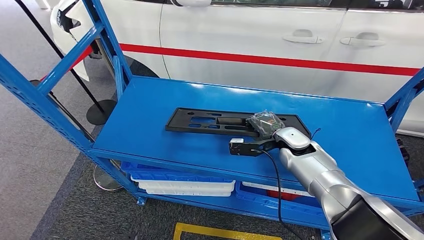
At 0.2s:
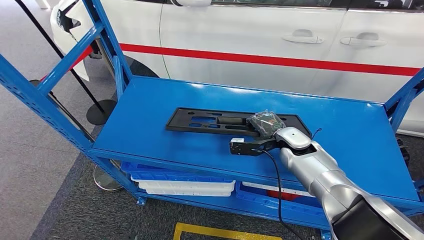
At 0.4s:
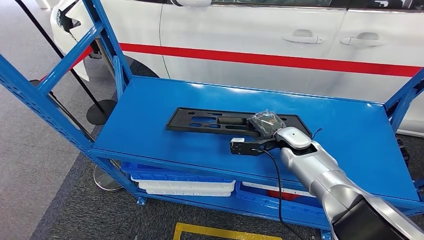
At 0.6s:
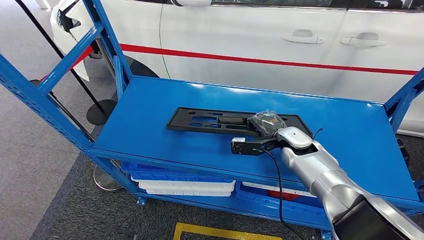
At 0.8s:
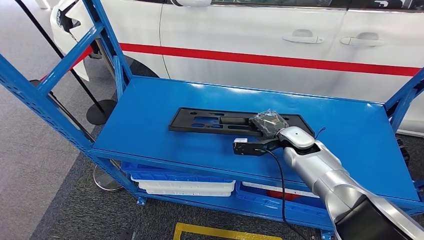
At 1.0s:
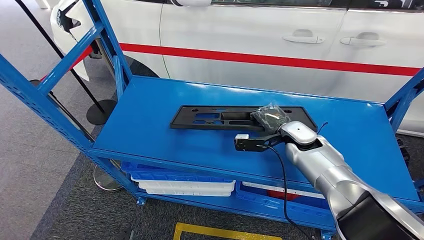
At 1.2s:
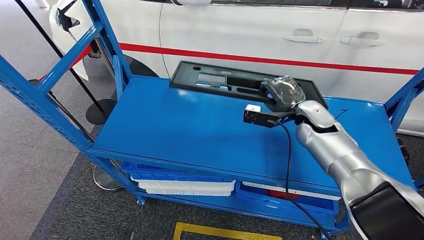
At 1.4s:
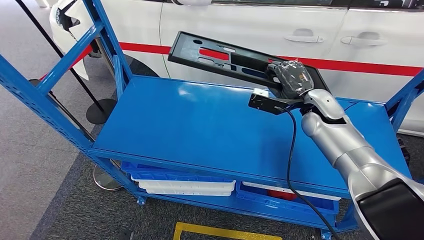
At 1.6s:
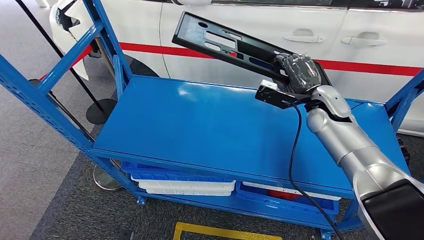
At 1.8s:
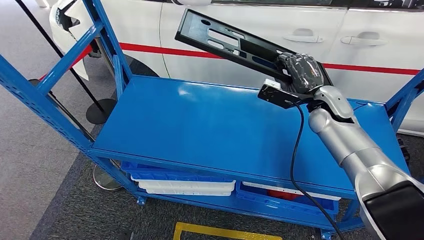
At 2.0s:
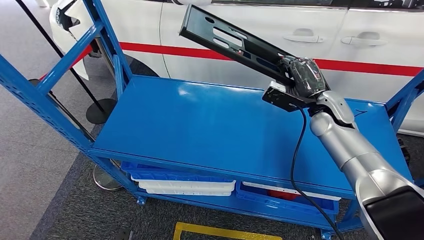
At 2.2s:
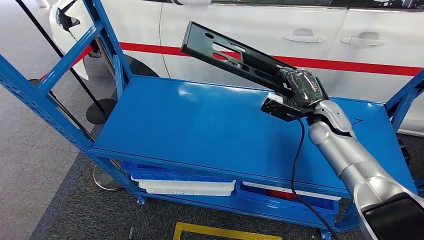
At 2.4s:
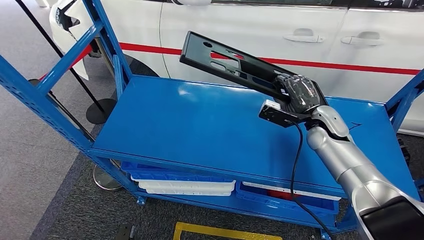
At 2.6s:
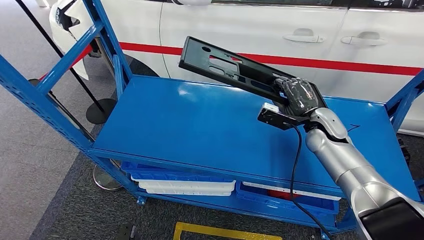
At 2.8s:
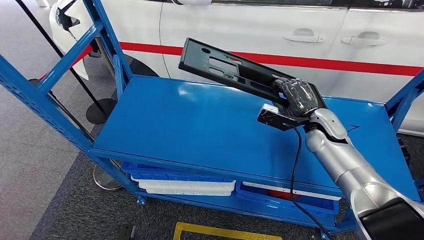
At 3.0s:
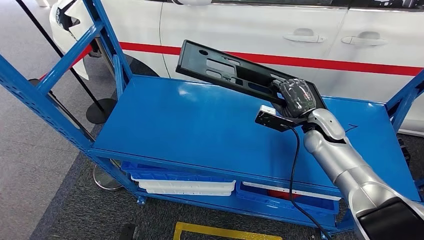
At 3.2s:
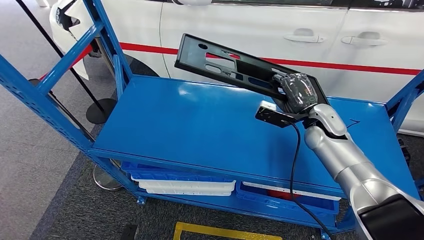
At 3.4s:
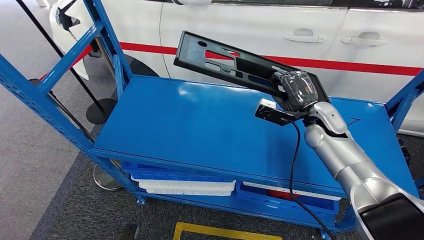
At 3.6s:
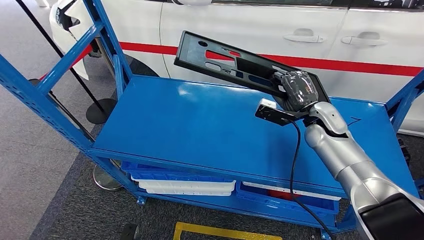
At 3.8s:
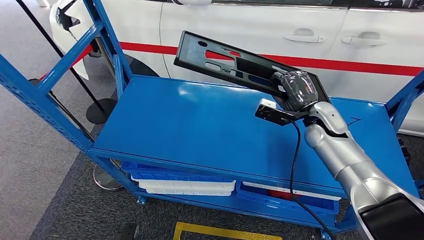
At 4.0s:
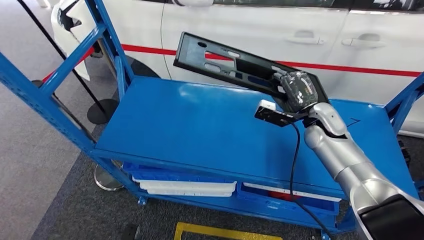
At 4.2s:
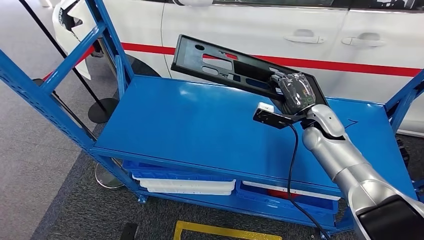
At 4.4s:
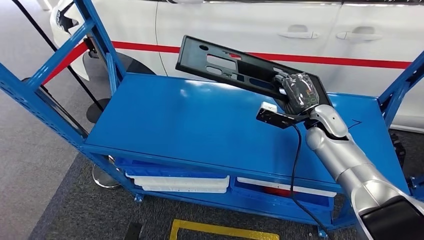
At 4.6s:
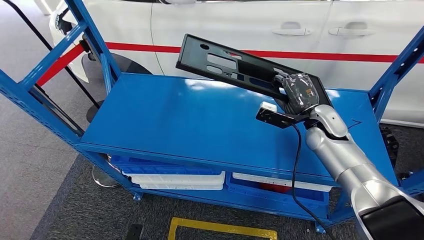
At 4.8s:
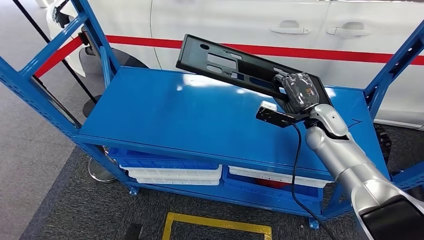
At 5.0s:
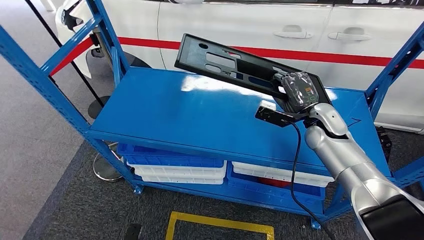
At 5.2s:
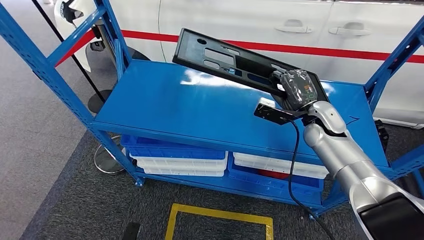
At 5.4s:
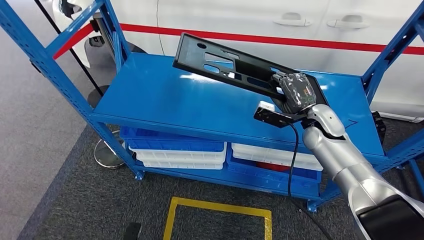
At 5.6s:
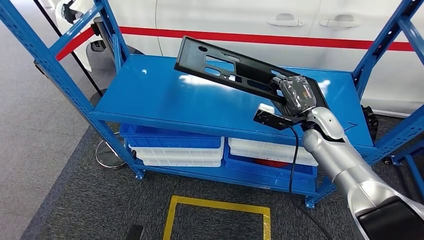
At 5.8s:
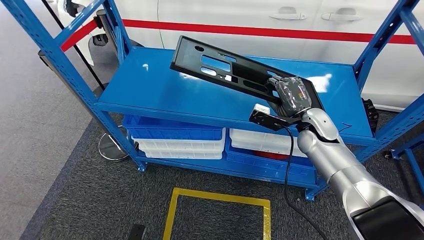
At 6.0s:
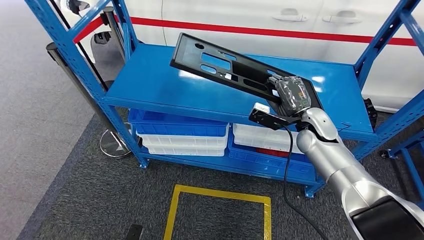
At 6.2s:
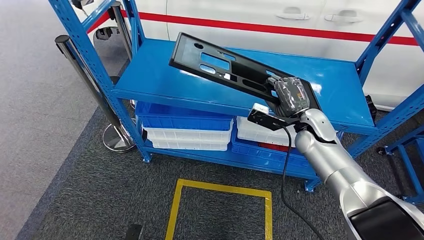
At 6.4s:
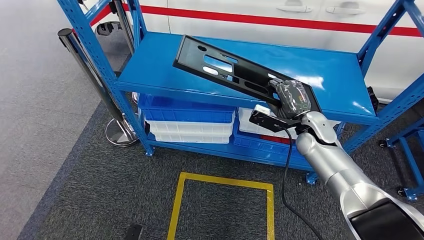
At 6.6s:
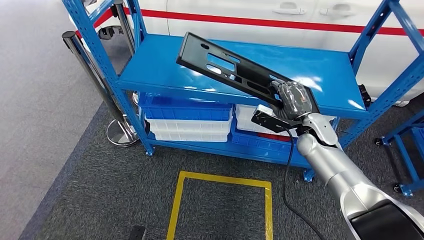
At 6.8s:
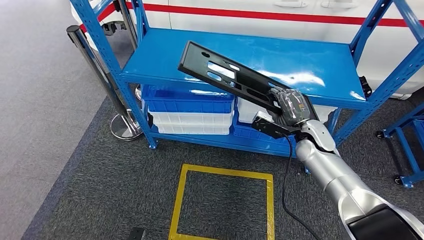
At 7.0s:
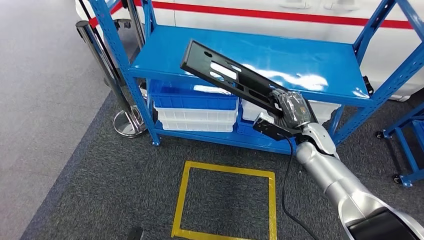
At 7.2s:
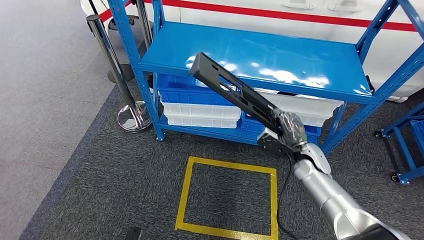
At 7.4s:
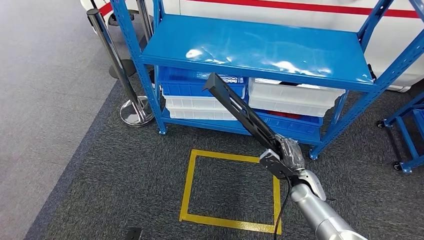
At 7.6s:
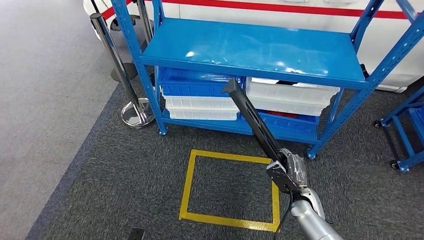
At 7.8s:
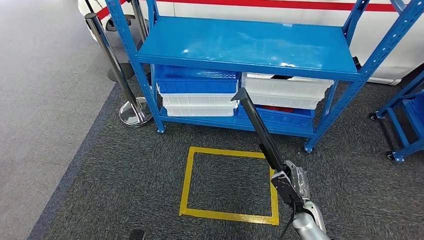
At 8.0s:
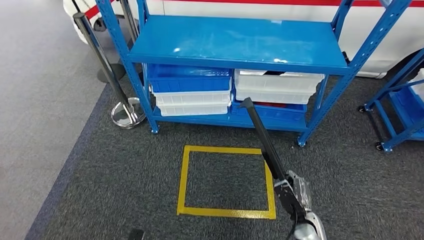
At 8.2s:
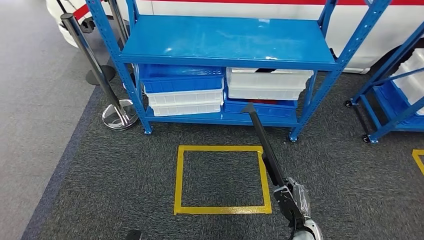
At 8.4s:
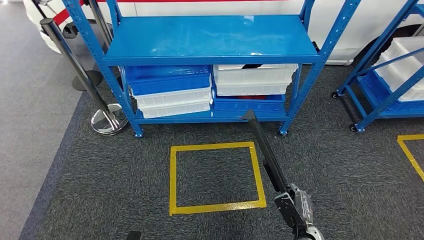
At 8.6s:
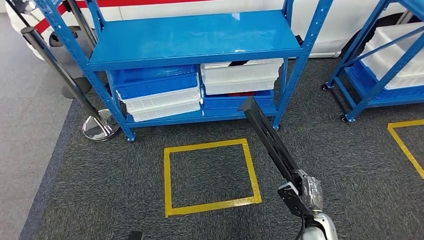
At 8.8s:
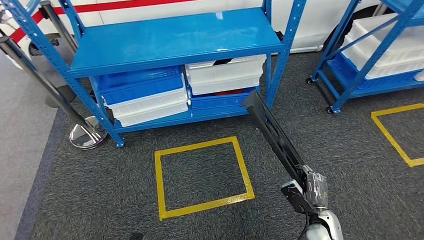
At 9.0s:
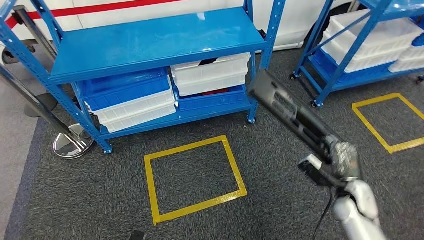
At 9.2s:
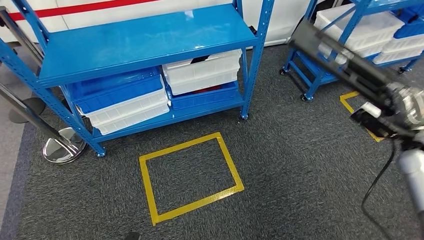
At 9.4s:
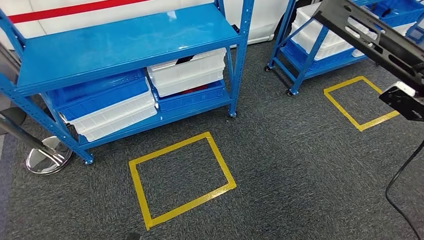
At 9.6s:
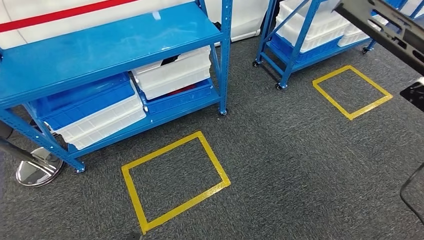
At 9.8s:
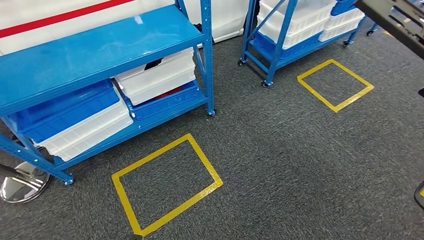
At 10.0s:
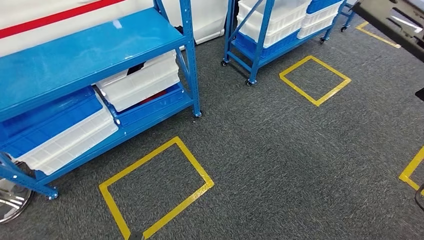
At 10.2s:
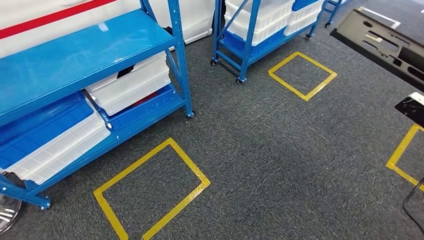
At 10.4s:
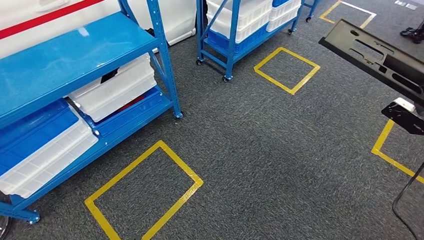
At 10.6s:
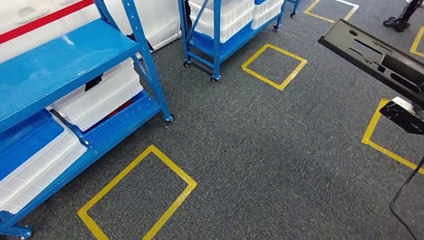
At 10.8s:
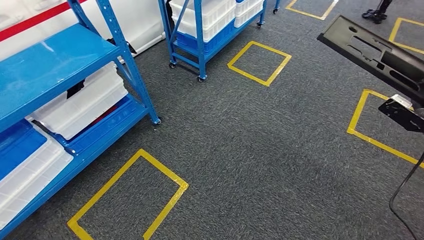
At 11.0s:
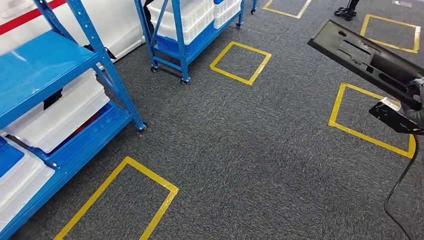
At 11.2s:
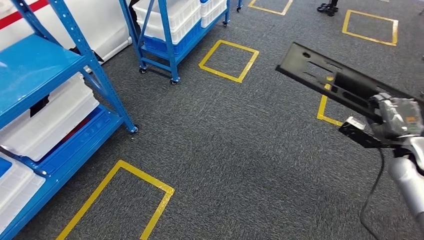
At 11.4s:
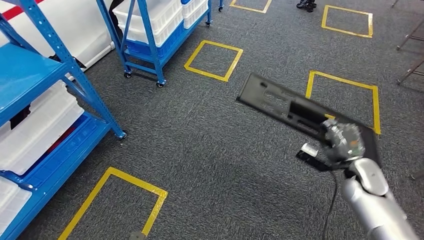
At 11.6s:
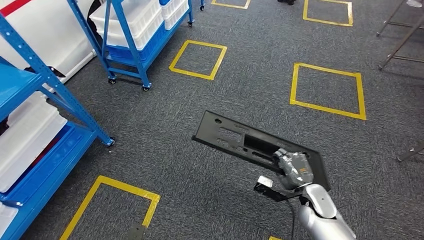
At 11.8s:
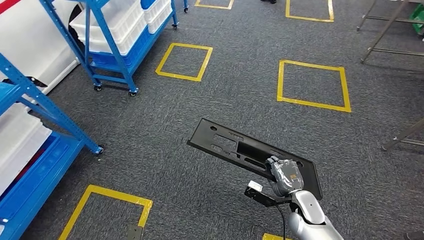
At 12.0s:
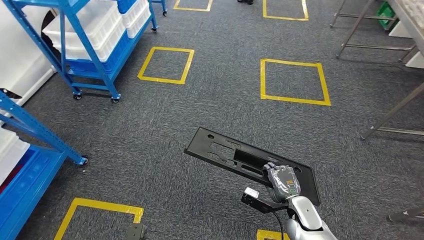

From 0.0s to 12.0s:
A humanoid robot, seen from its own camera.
From 1.6s to 3.0s: The right hand moves downward, some 5 cm.

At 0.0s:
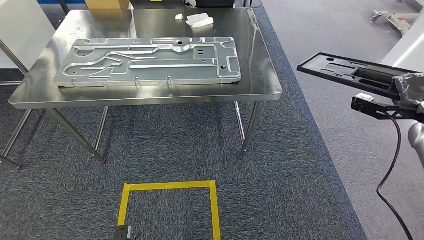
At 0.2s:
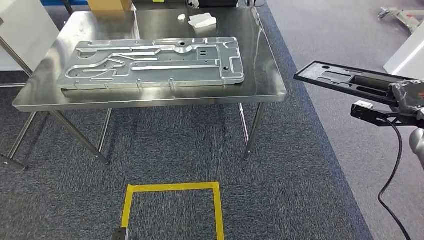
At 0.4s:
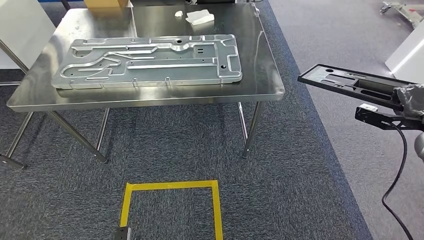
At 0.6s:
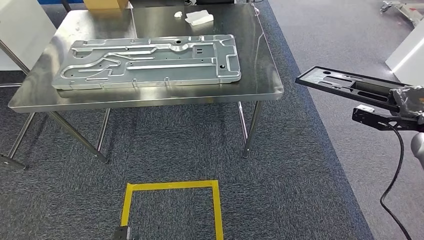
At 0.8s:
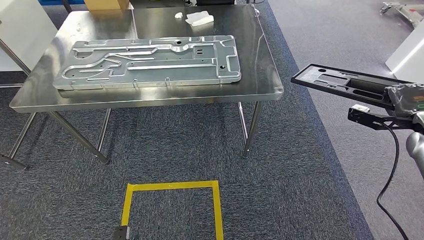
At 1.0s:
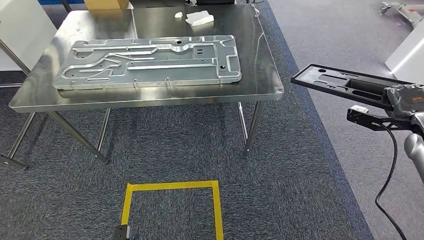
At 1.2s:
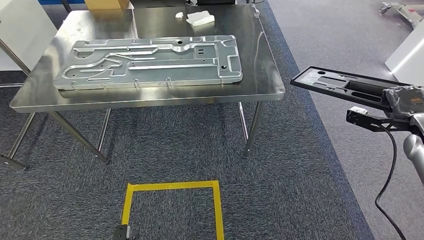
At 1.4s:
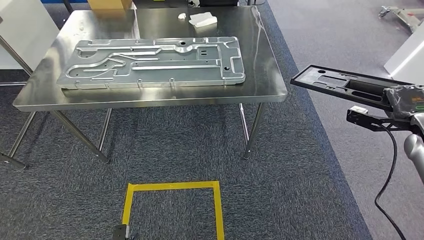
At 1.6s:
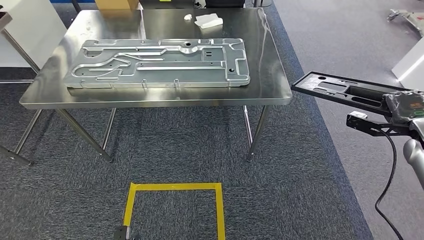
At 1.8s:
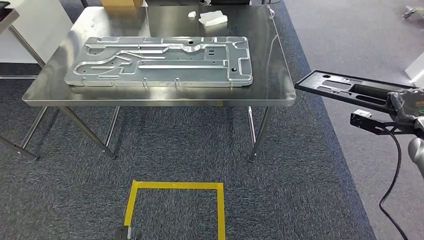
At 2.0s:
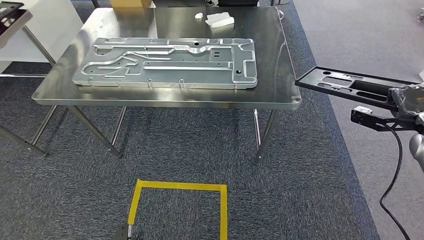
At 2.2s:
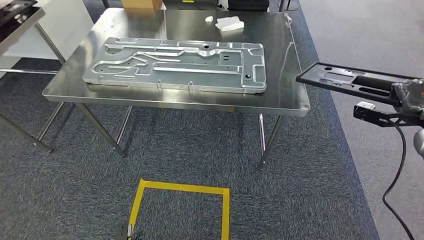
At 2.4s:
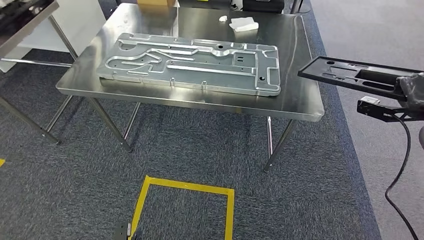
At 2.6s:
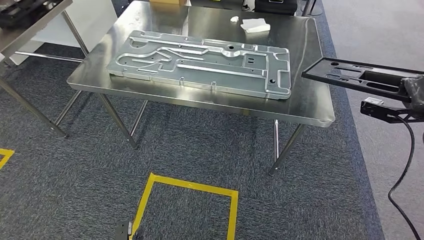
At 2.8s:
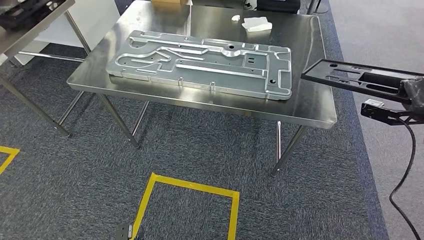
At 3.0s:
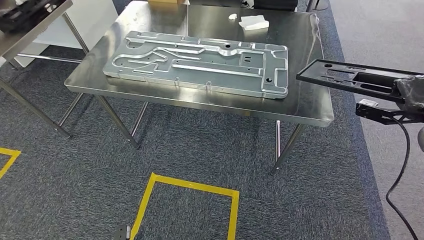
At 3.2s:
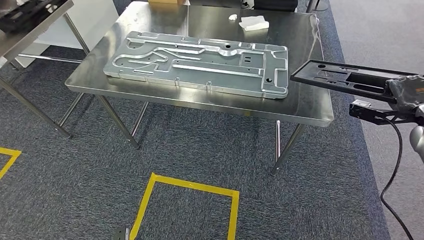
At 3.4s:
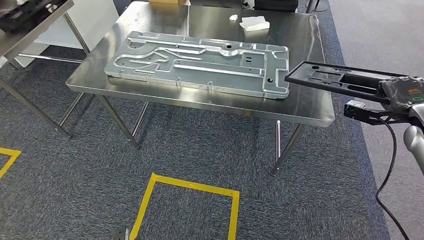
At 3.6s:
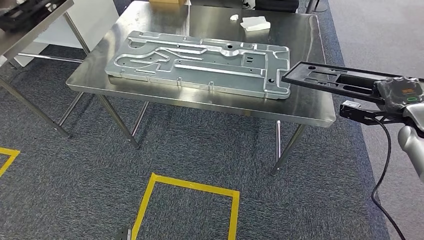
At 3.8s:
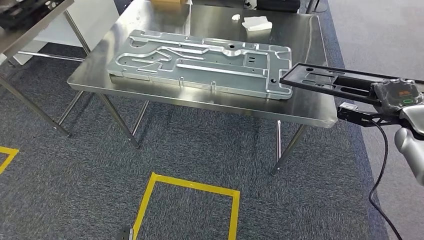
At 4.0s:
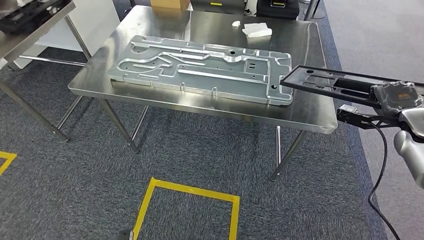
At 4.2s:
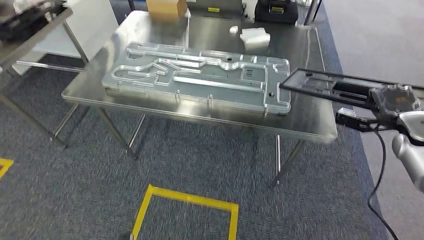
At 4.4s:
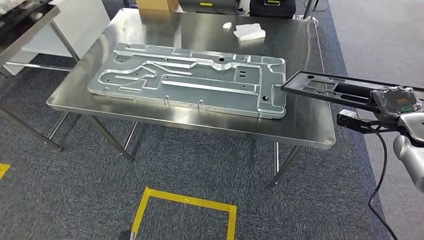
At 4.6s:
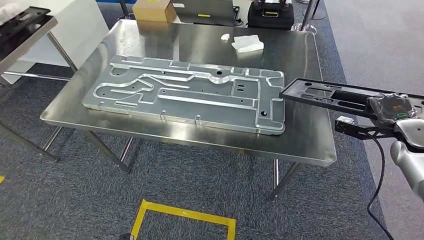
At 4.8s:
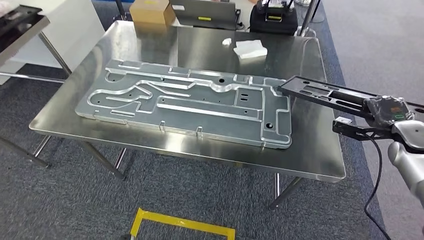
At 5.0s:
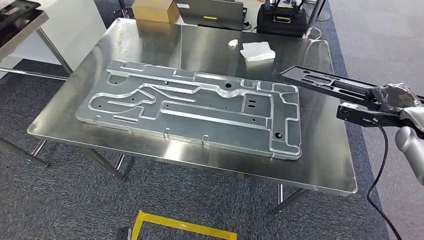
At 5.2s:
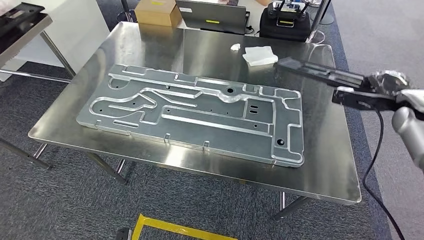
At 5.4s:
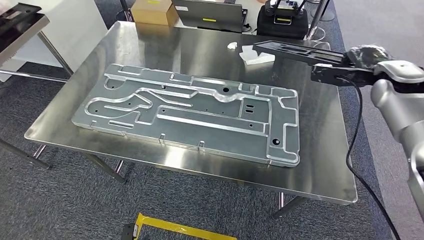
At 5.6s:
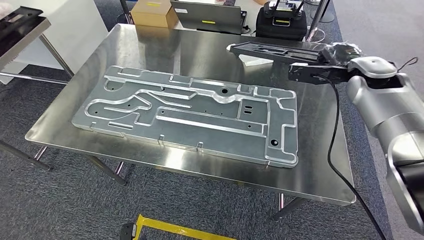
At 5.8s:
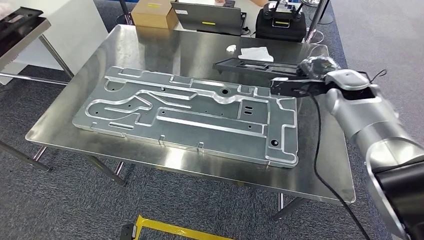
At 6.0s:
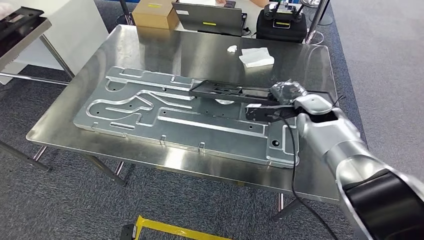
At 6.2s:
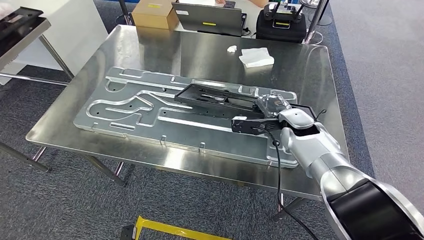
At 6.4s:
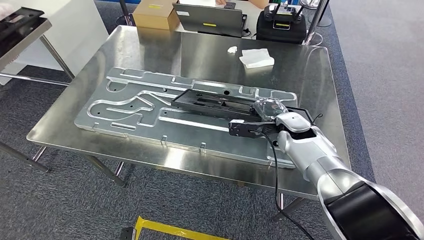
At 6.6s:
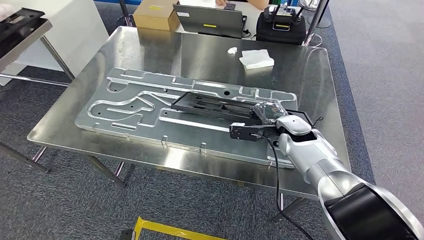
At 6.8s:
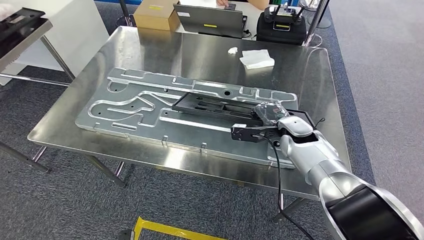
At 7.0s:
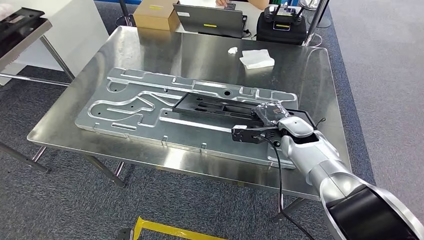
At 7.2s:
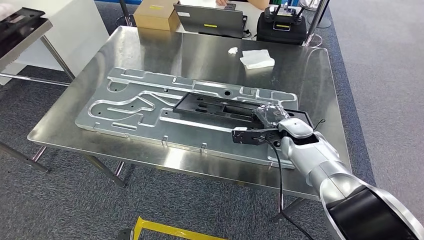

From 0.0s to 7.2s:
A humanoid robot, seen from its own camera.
Step, from 0.0s to 3.8s: Move the large material to the workbench.
From 0.0s to 1.4s: There are only small adjustments of the hands.
